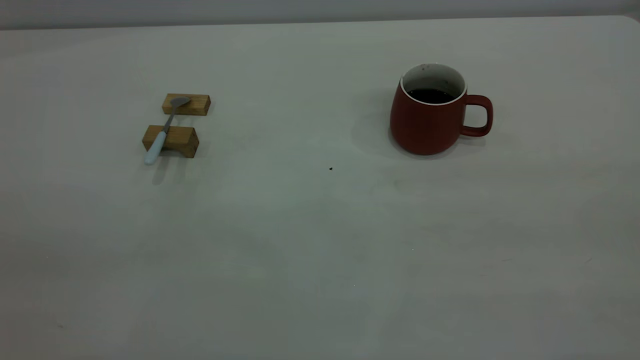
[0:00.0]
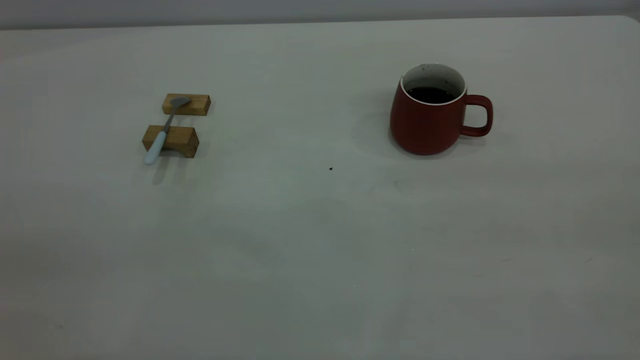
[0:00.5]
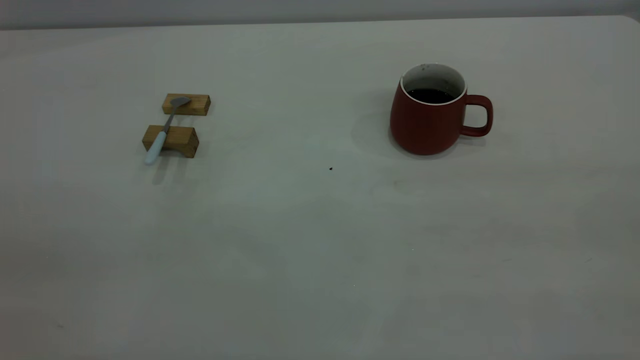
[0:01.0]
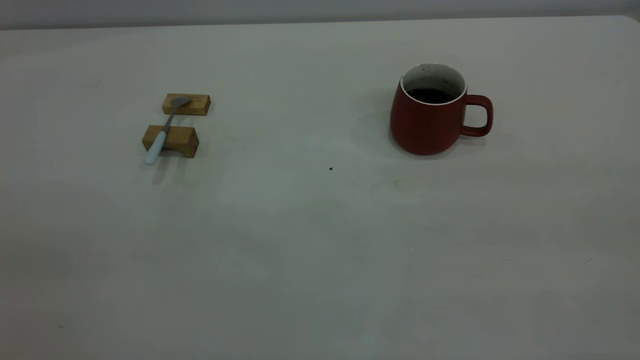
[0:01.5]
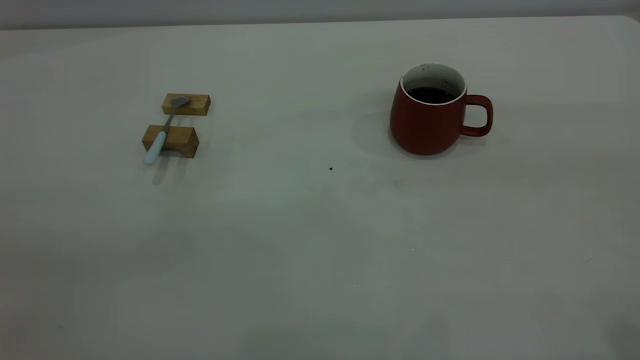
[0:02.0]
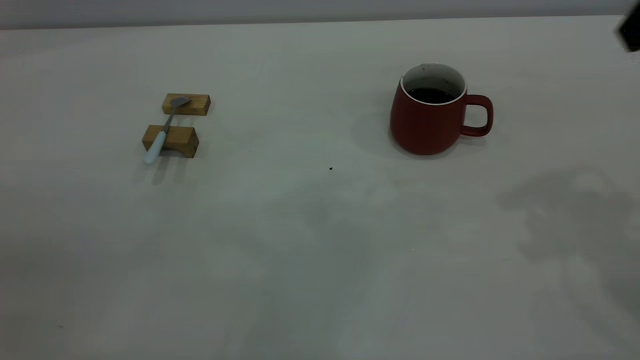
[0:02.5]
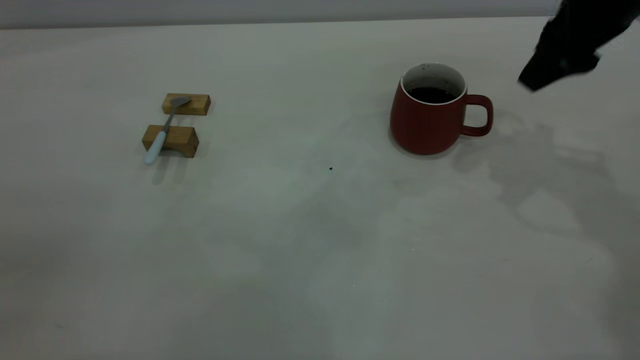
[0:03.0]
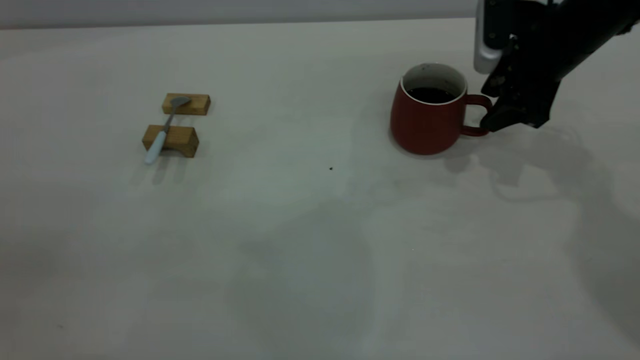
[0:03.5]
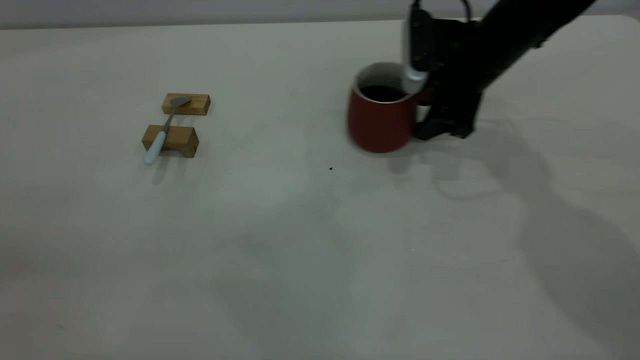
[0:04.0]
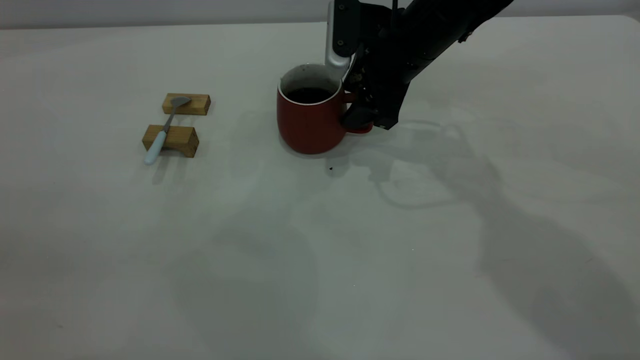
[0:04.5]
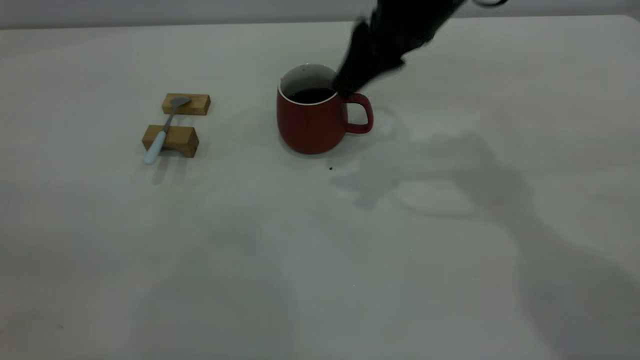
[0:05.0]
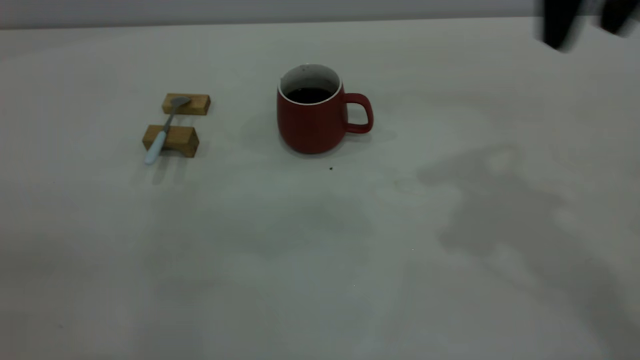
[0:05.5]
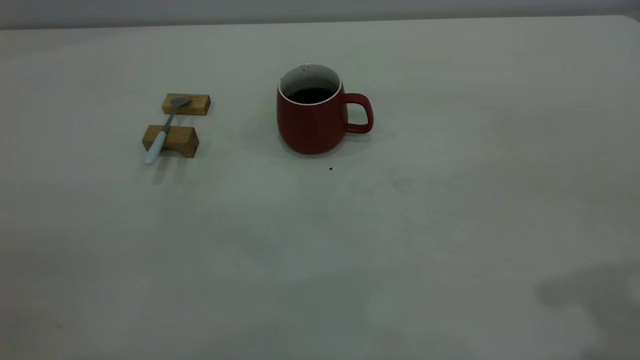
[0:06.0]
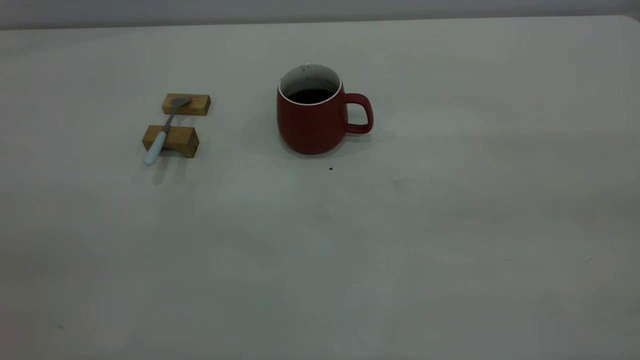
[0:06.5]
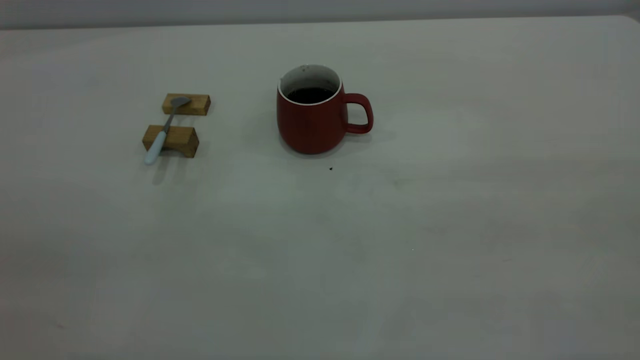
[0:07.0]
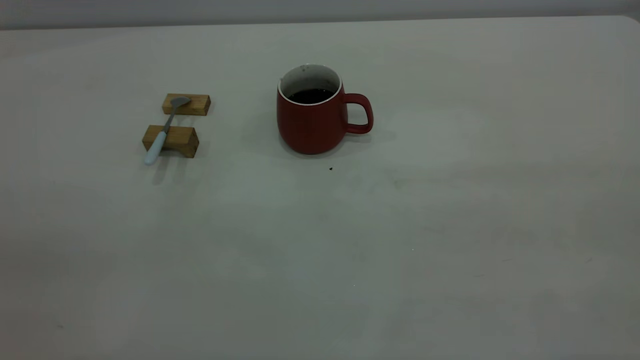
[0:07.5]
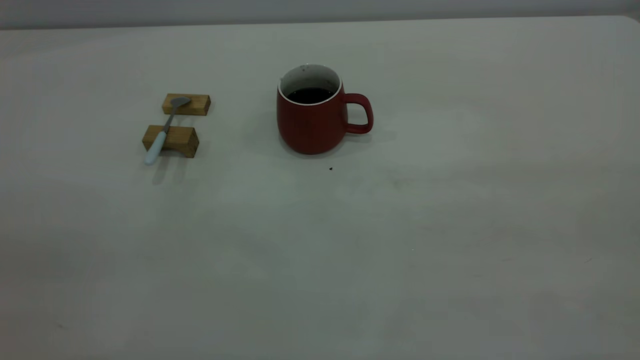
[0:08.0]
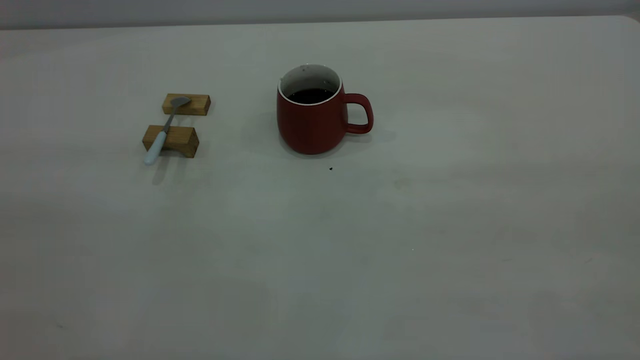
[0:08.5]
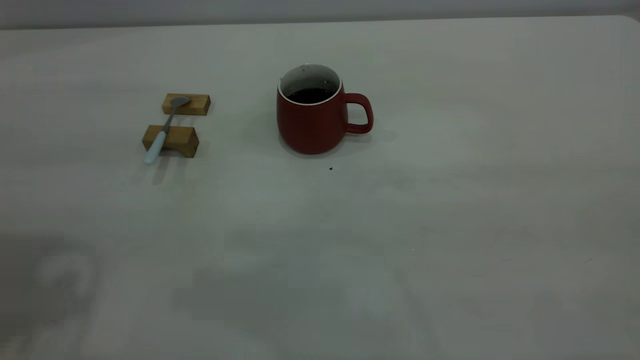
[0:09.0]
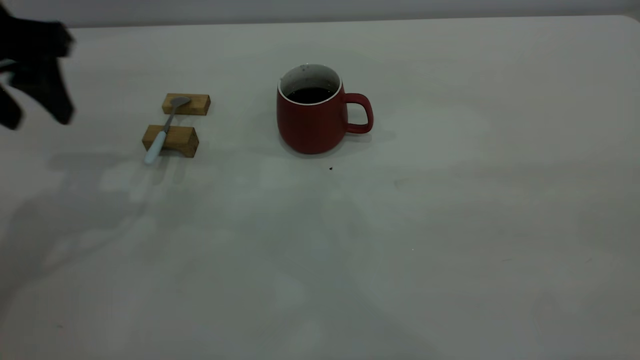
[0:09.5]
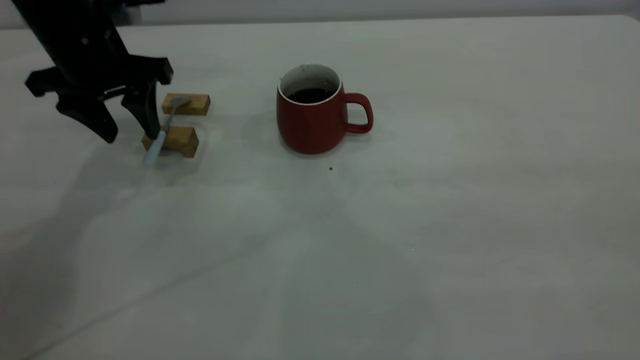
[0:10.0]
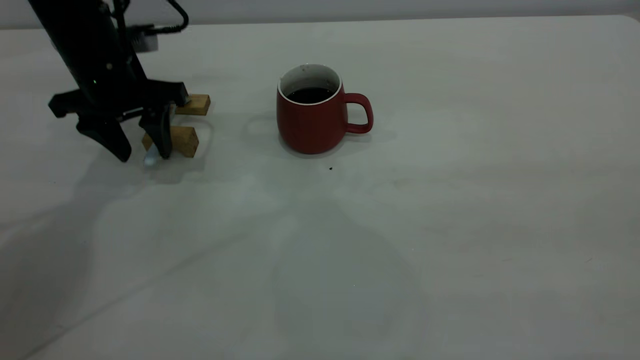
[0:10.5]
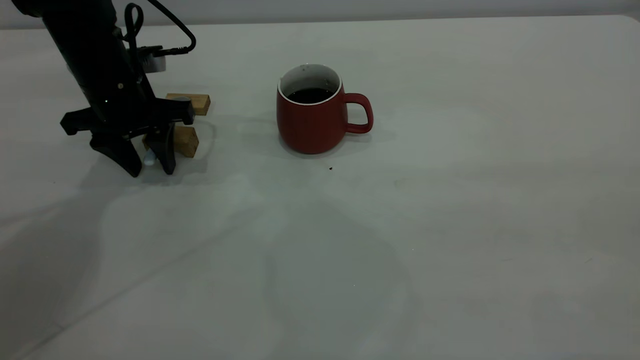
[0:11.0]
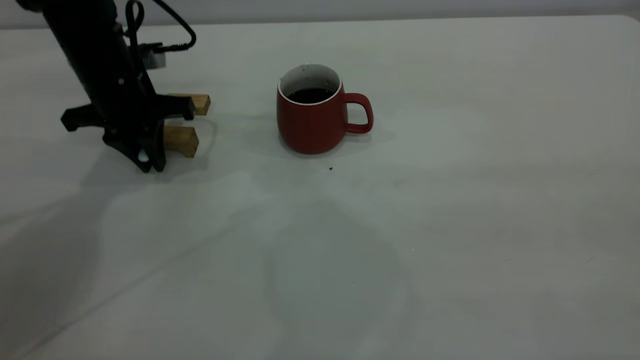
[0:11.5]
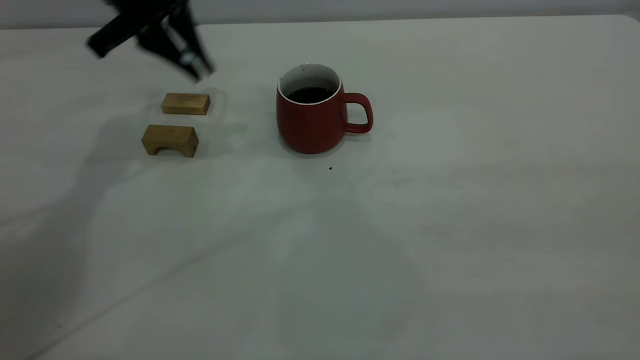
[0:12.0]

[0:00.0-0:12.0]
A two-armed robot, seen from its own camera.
Step, 0:00.0 to 0:05.0: Move the cup with coffee to the center of view.
Step, 0:05.5 to 0:11.5: Pick up the spoon.
0:02.0 to 0:04.0: The right gripper moves forward and downward, roughly 40 cm.
0:04.0 to 0:06.0: The right gripper is displaced backward and upward by about 35 cm.
0:08.0 to 0:10.0: The left gripper moves forward and downward, roughly 50 cm.
0:10.0 to 0:12.0: The left gripper heads upward, covering approximately 5 cm, and closes up.

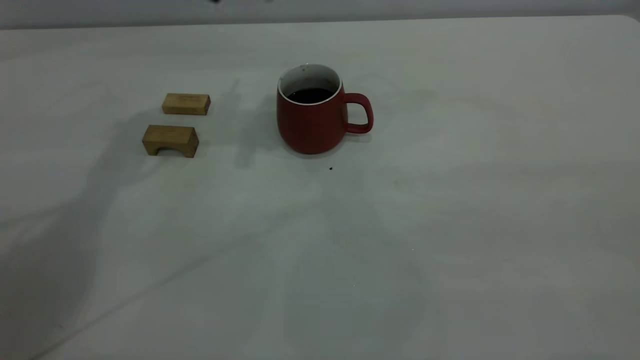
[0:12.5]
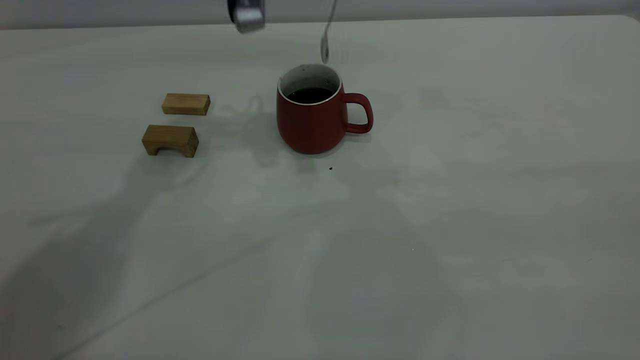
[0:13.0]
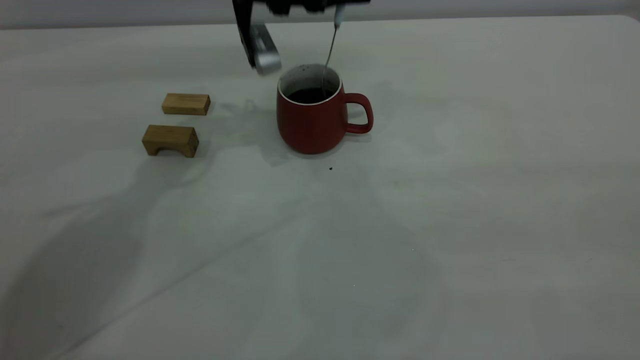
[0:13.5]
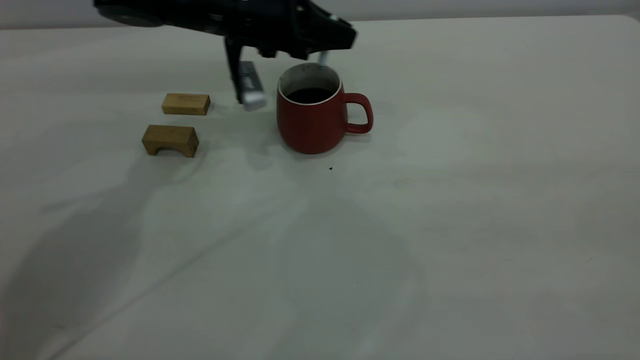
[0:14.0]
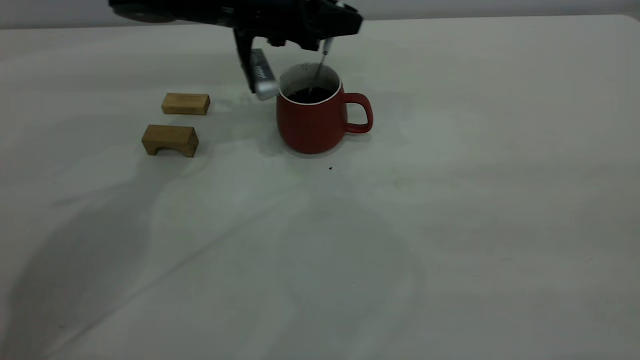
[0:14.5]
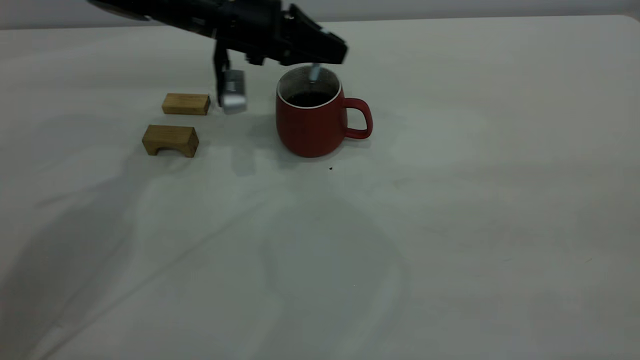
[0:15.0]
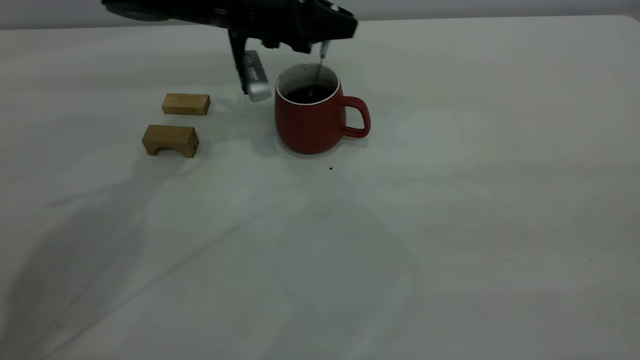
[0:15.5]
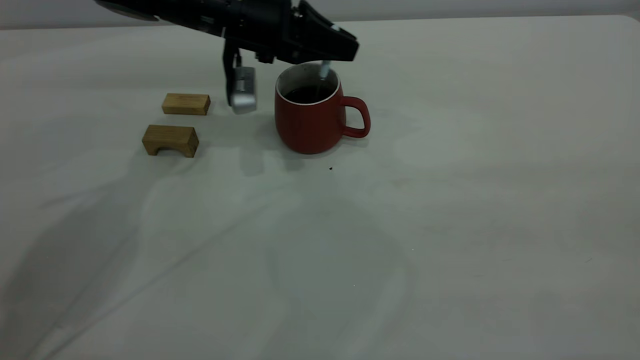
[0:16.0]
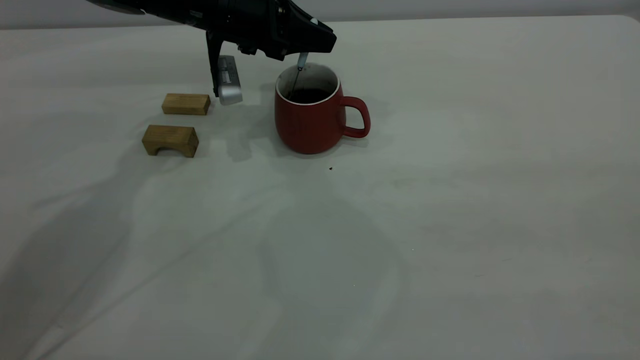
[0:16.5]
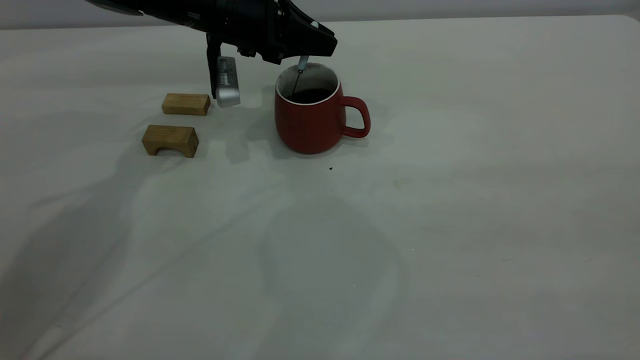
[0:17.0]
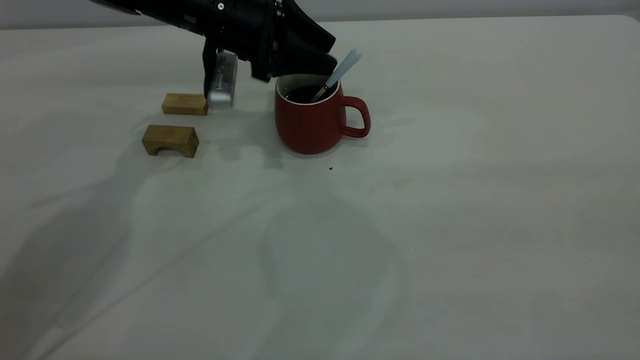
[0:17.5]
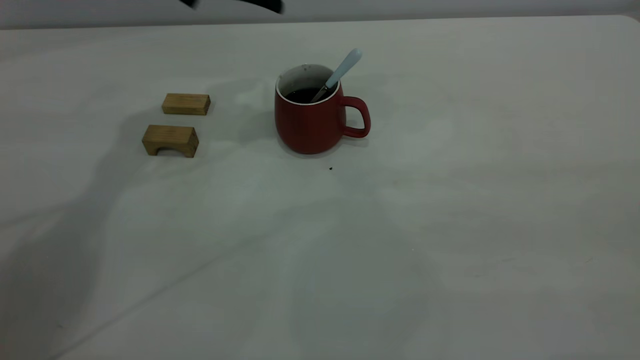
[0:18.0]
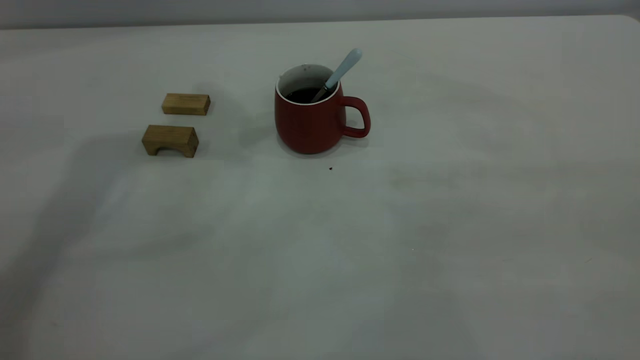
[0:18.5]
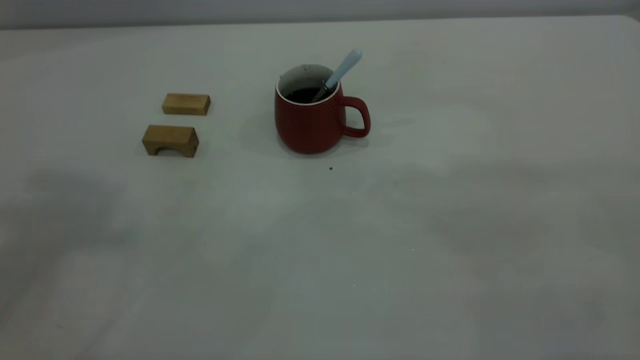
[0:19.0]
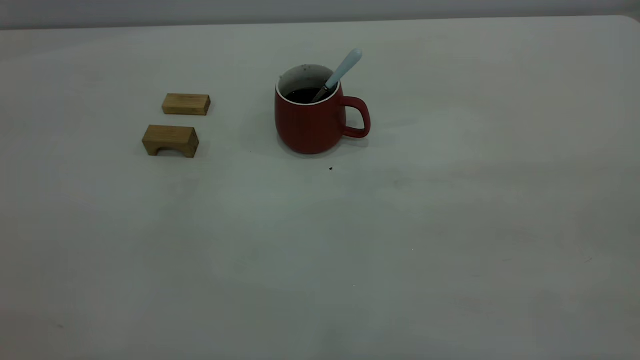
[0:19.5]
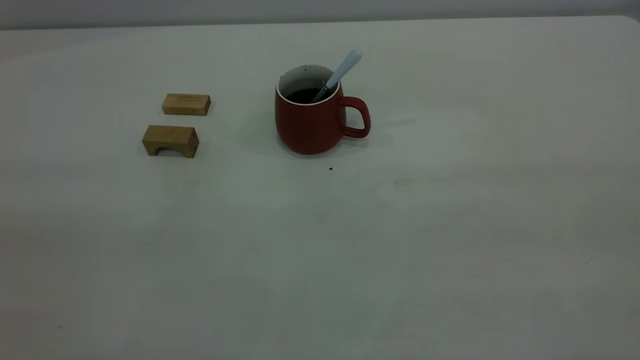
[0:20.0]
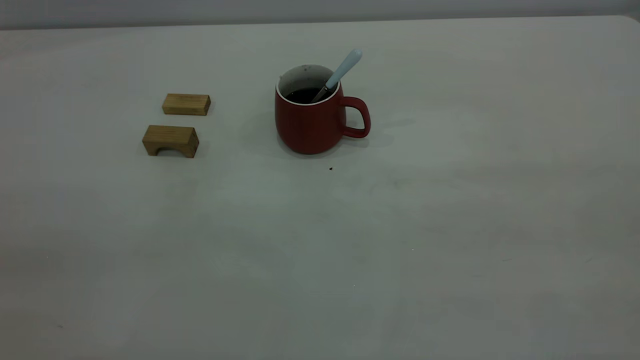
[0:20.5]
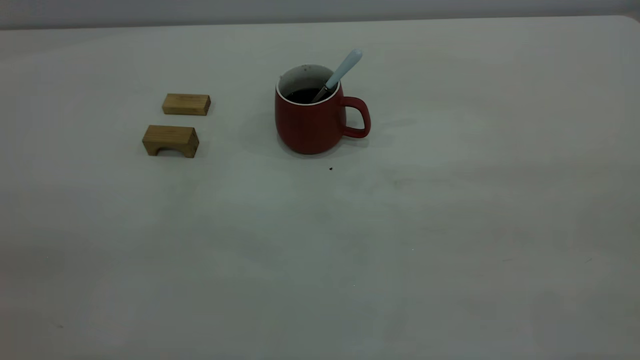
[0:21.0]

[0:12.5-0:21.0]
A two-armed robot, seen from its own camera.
Step, 0:12.5 to 0:17.5: Stir the coffee in the cup.
0:12.5 to 0:14.5: The left gripper heads downward, covering roughly 10 cm.
0:14.5 to 0:16.5: The grippers move only a little.
0:16.5 to 0:19.0: The left gripper moves upward and backward, approximately 50 cm, and opens its fingers.
